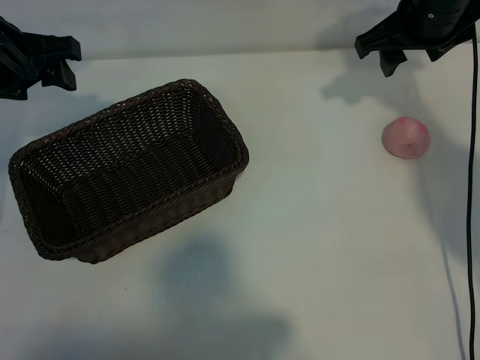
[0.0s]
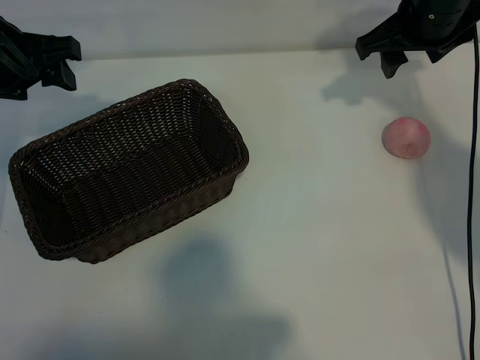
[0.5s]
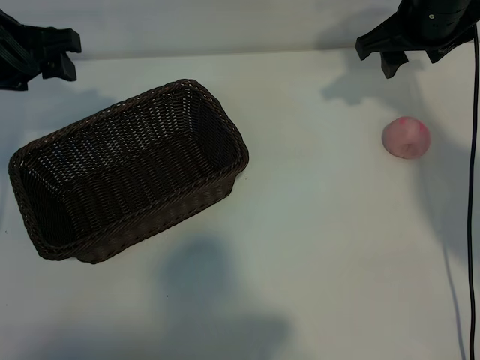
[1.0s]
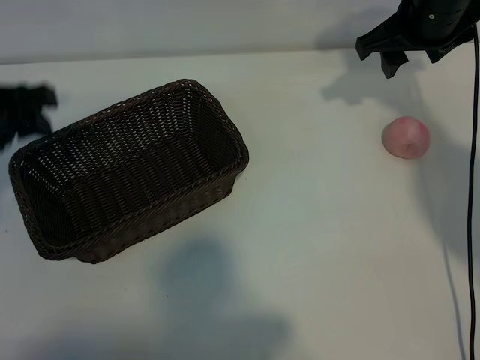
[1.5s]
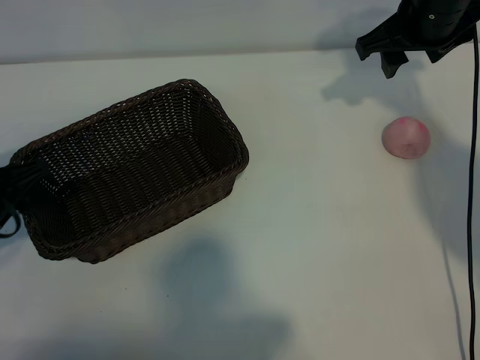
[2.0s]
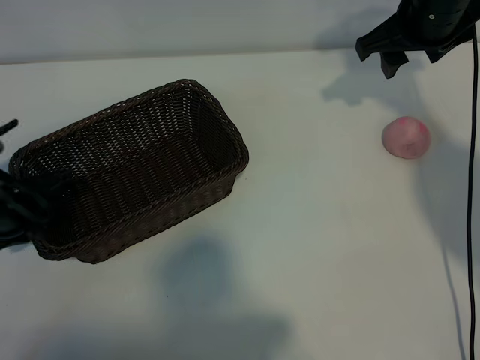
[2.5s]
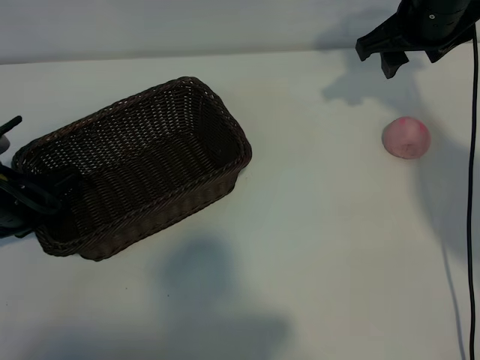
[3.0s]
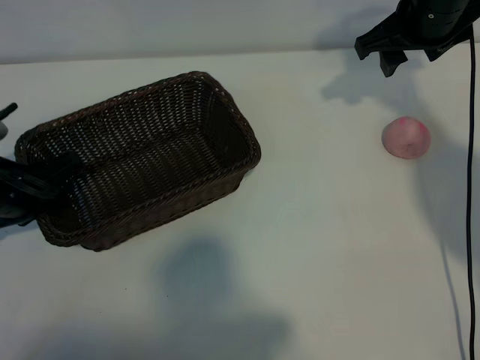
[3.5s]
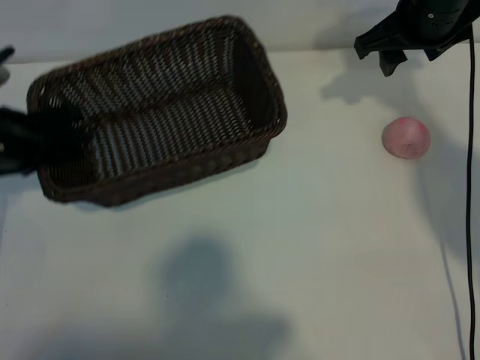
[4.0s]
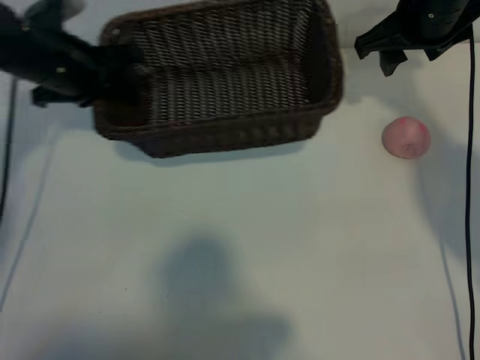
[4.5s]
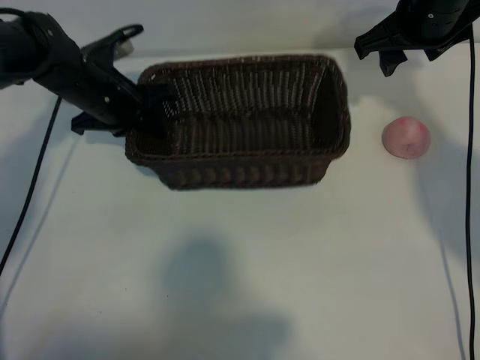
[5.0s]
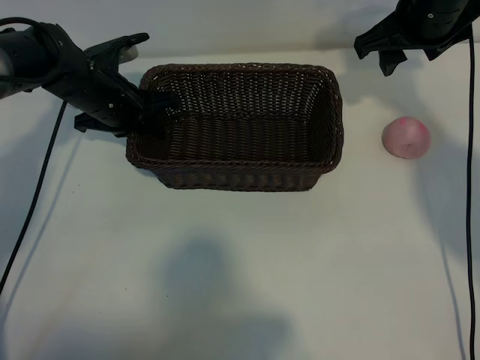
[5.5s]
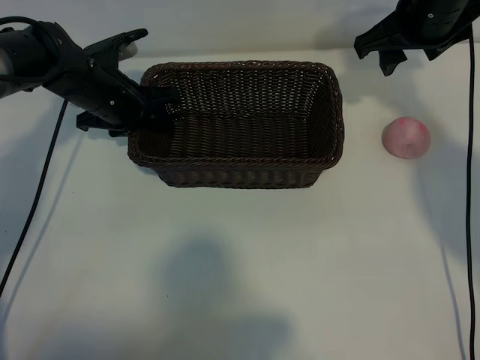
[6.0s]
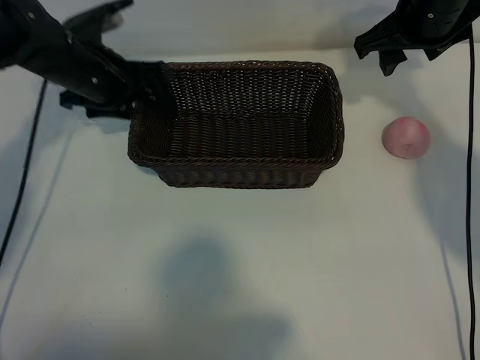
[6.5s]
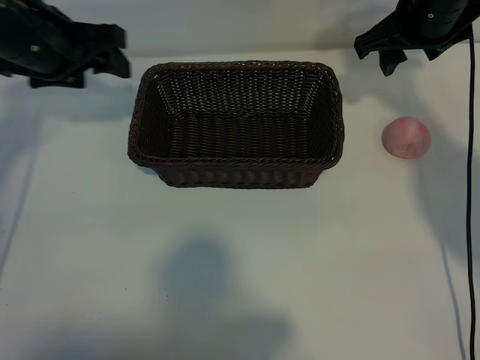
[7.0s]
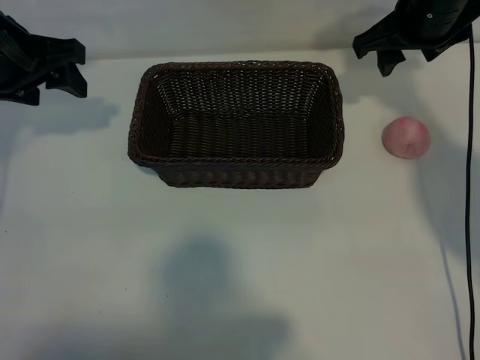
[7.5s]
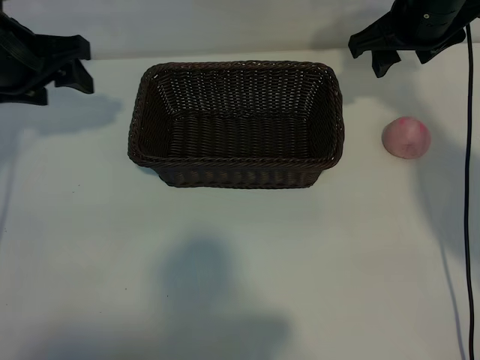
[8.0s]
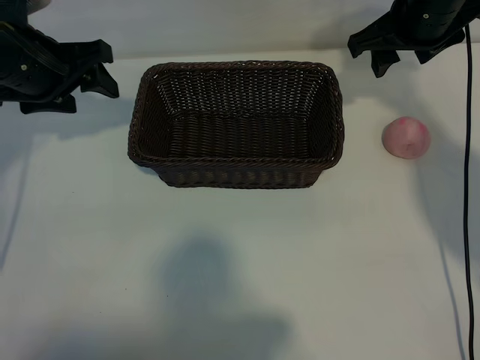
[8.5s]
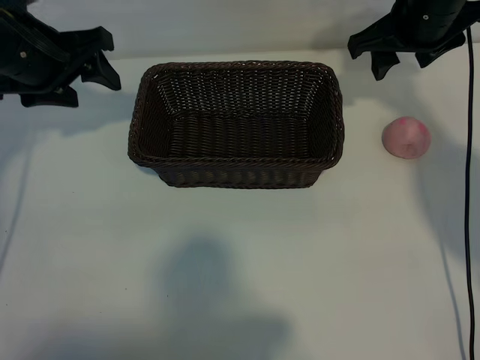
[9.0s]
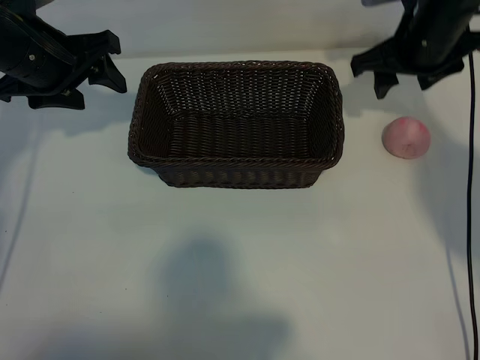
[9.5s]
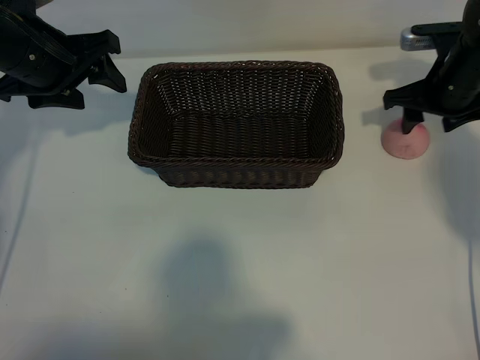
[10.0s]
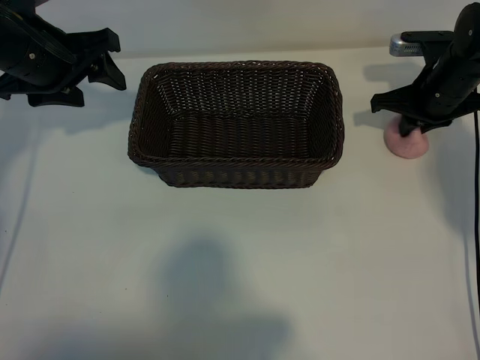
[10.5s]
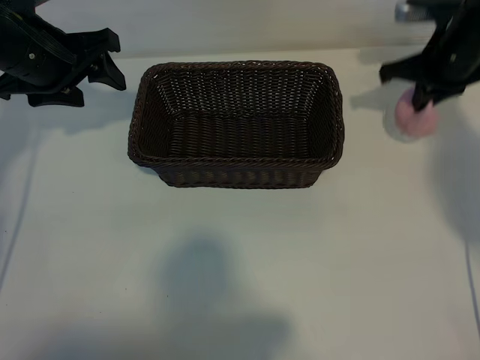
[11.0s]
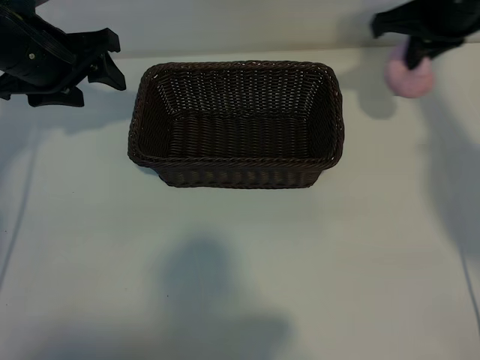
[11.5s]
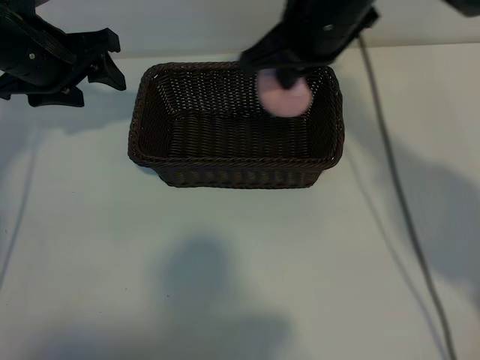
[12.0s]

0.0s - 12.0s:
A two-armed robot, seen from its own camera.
Task of the whole recording: pick up the peach and put it into the basket.
Step, 1.0s - 2.5s: Grasp the basket with left gripper.
Step, 3.0s - 6.0s: Place the basket in the center of view with left gripper.
Step, 6.5s - 10.5s: Grasp the peach with right gripper.
